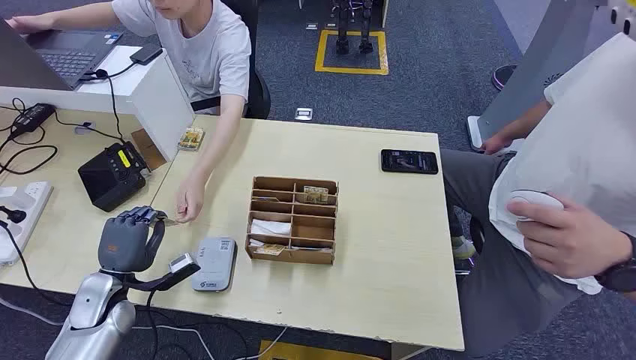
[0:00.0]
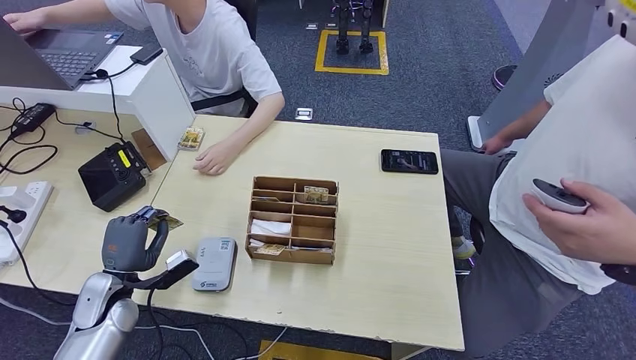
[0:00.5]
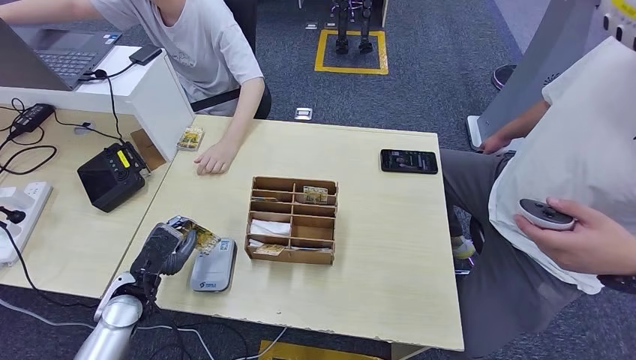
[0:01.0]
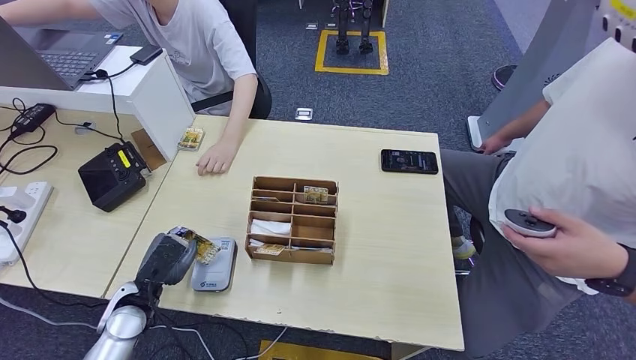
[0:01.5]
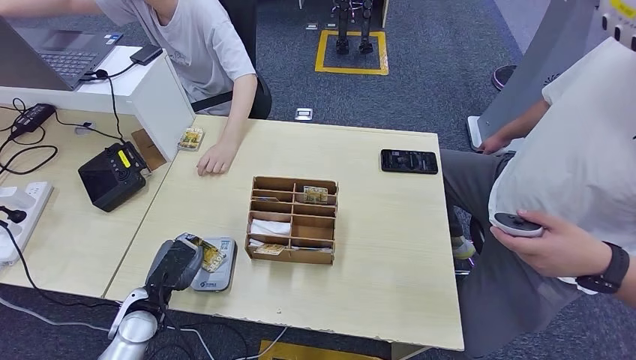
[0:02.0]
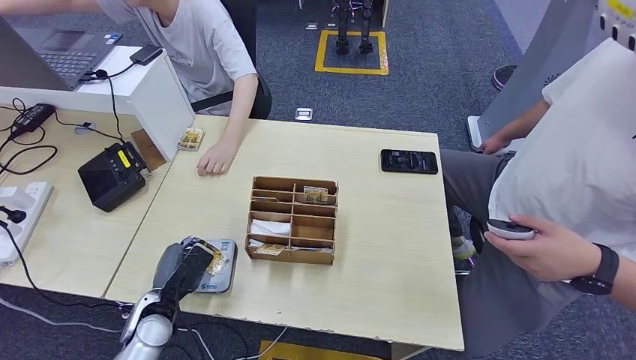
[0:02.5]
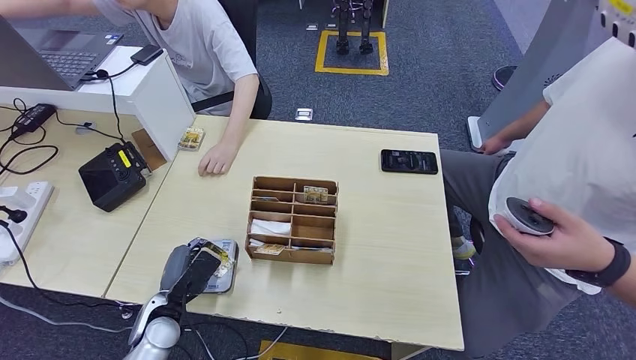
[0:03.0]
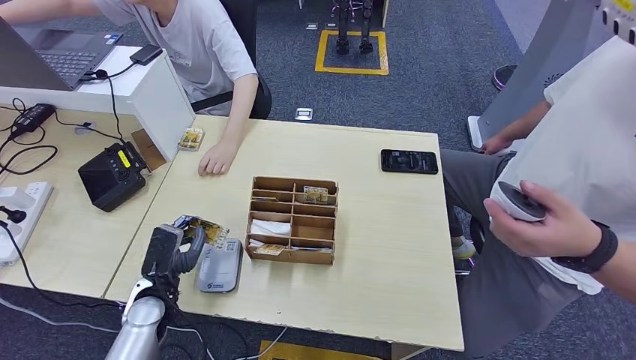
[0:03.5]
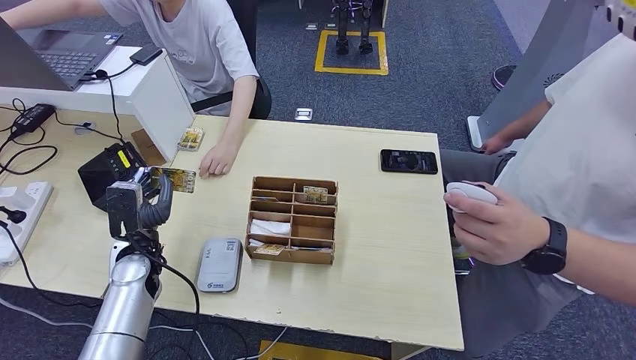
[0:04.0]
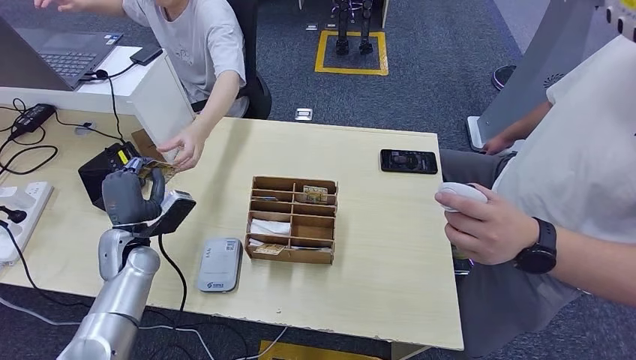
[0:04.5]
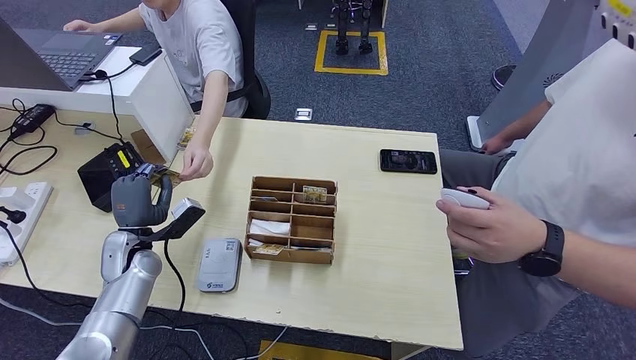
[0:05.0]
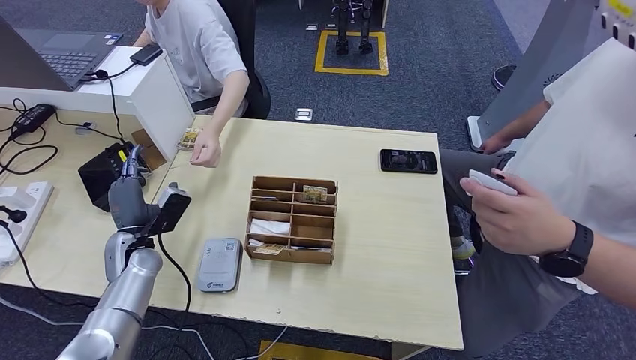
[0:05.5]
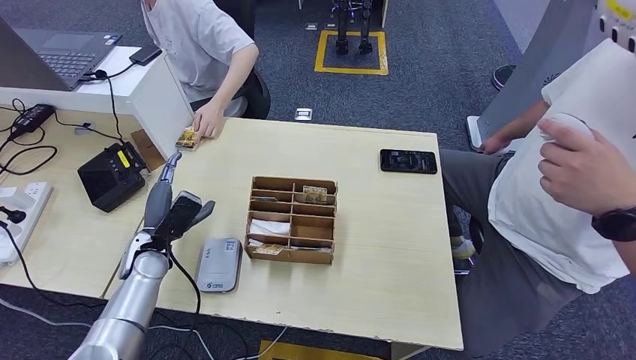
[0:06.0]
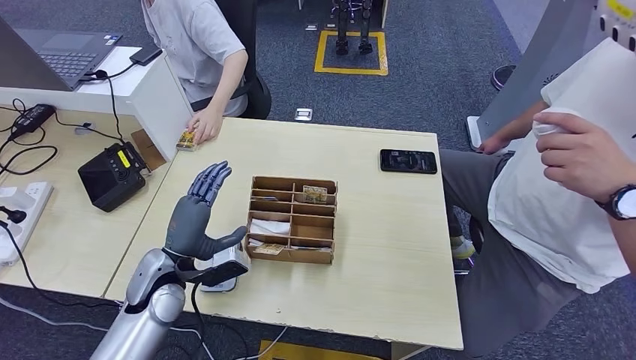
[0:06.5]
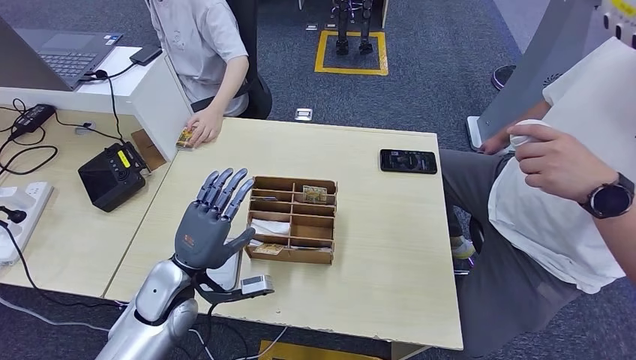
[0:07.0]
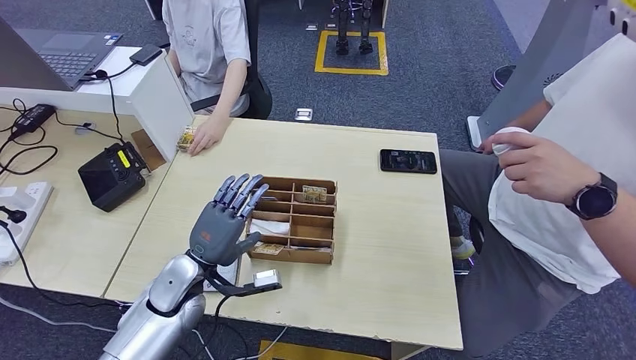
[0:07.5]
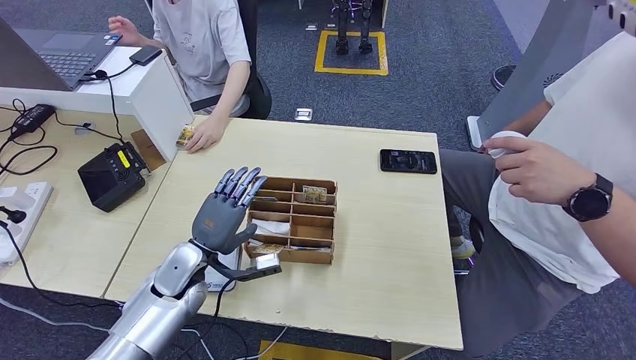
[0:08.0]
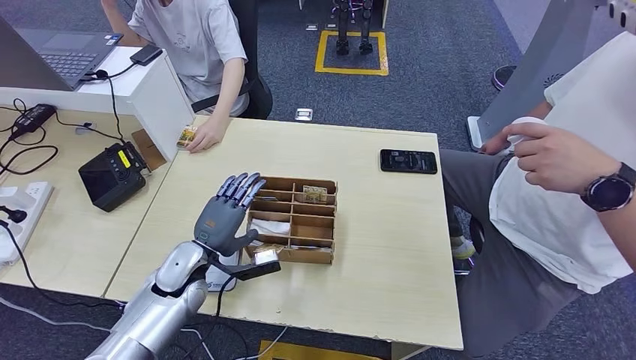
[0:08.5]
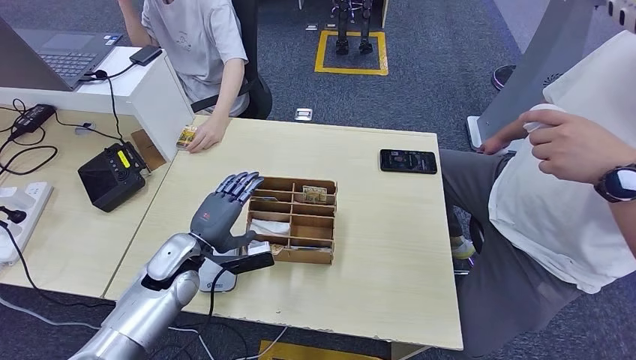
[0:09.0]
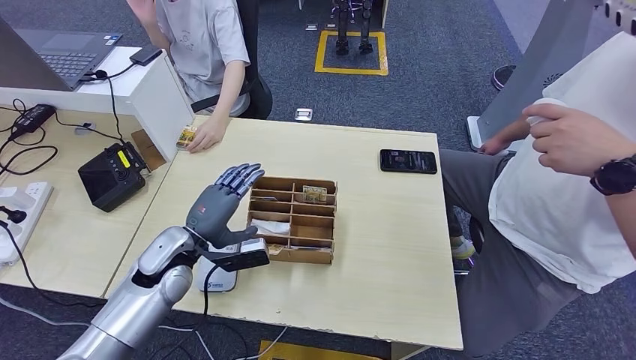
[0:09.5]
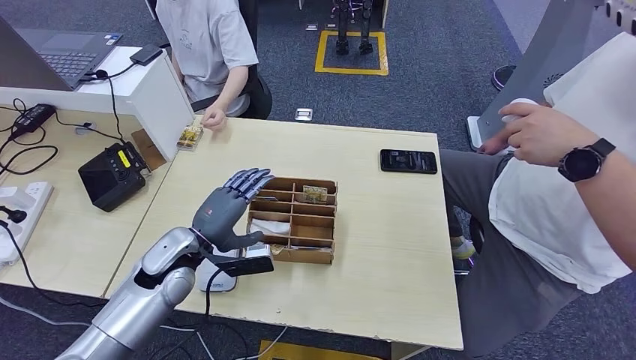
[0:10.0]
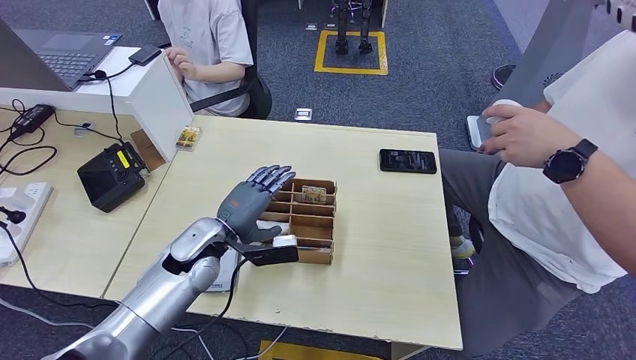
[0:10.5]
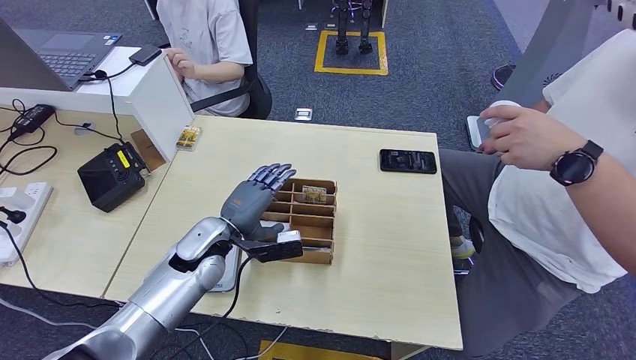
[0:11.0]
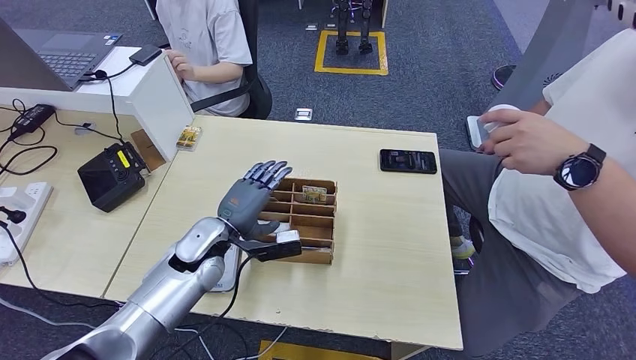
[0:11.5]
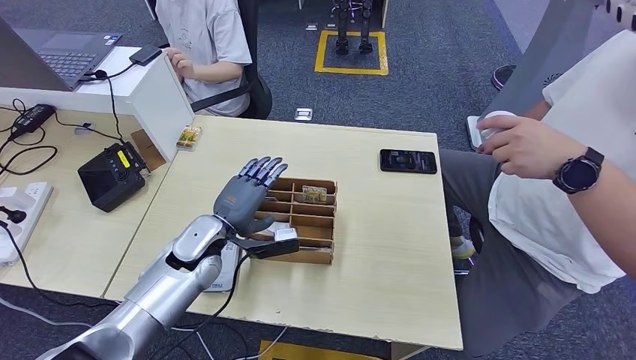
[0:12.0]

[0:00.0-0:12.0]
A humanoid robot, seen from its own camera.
Step, 0:00.0 to 0:00.5: Take the ID card from the person's hand.
Step, 0:01.0 to 0:03.0: Place the ID card on the card reader.
Step, 0:03.5 to 0:06.5: Hand the ID card to the person.
0:02.0 to 0:04.0: The left hand travels forward and upward by approximately 10 cm.
0:06.0 to 0:08.0: The left hand is displaced to the right by some 10 cm.
0:10.0 to 0:12.0: The left hand ends up some 5 cm from where it was.

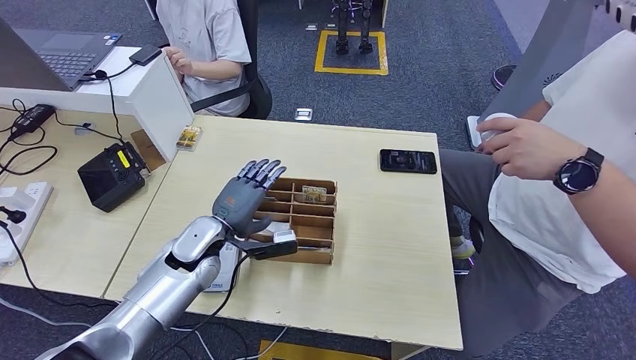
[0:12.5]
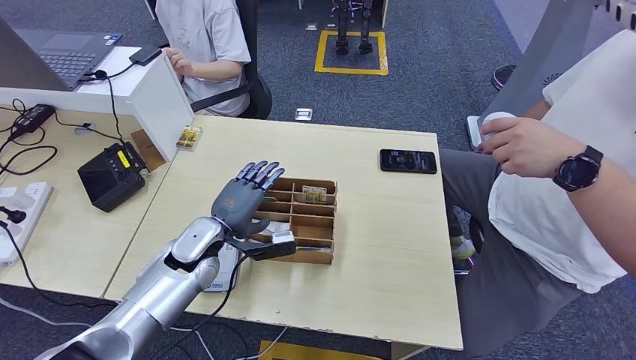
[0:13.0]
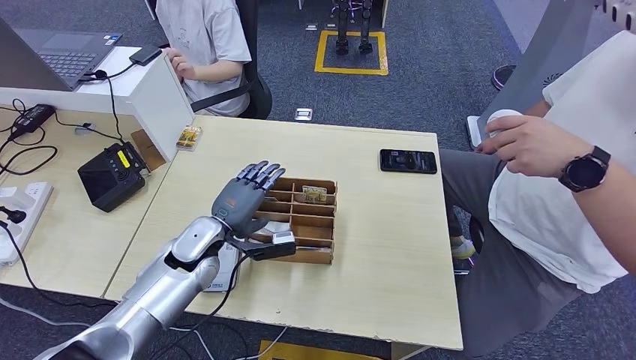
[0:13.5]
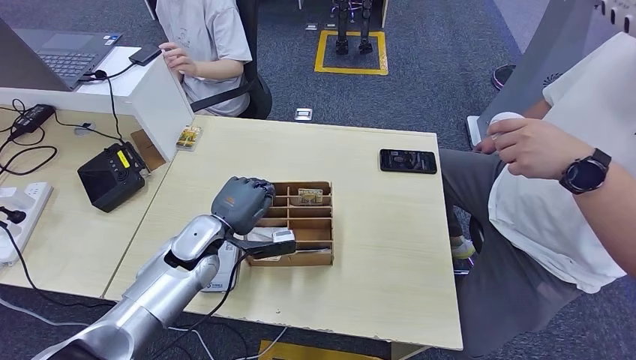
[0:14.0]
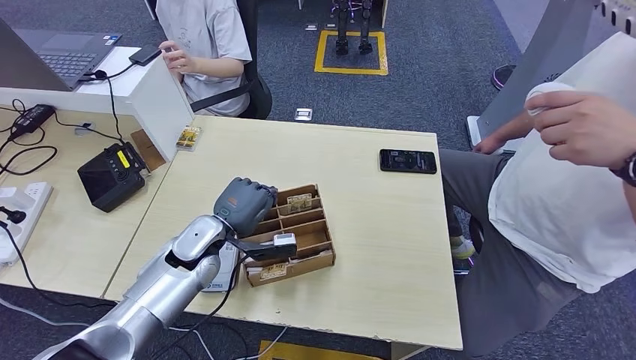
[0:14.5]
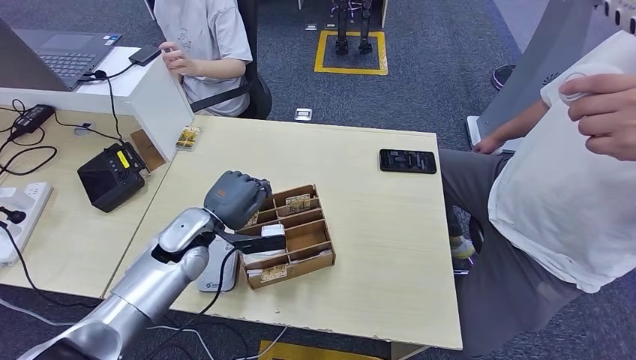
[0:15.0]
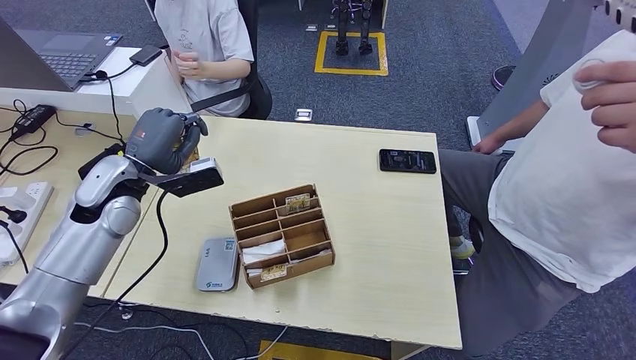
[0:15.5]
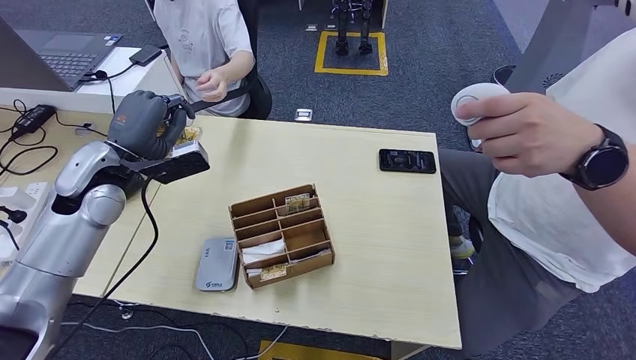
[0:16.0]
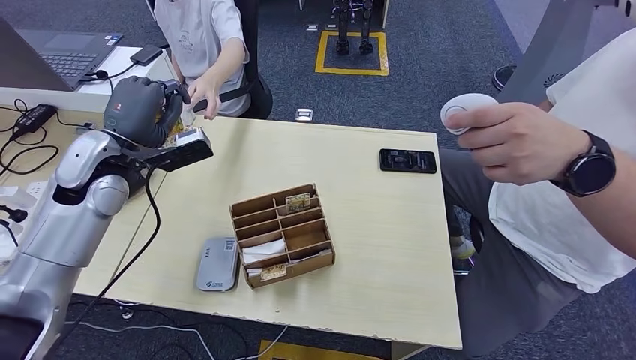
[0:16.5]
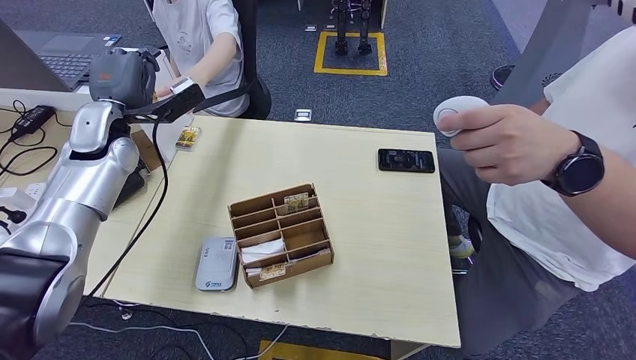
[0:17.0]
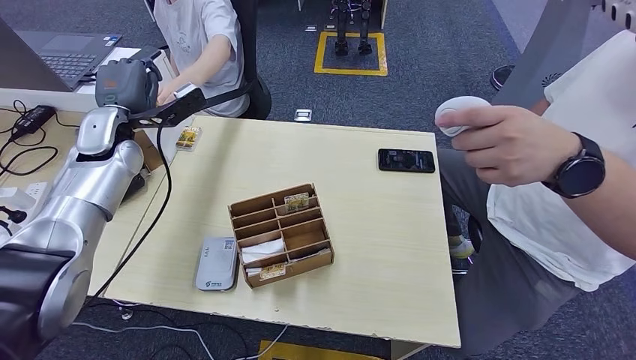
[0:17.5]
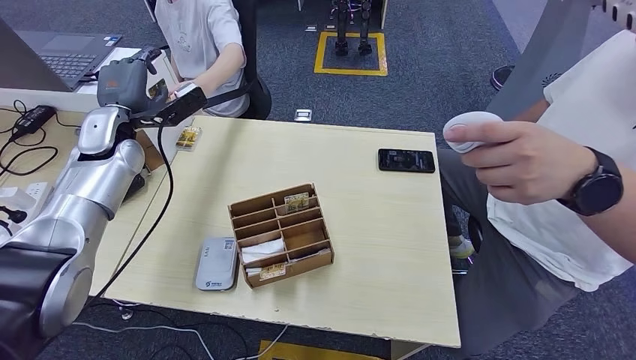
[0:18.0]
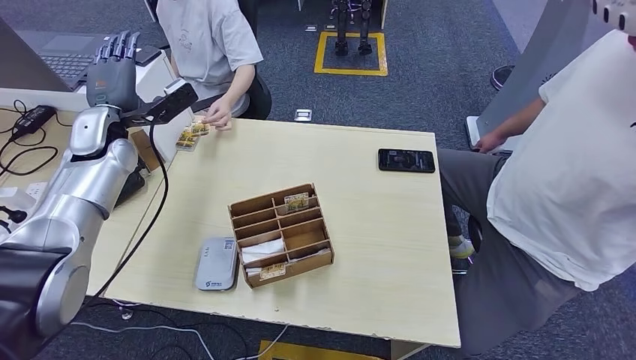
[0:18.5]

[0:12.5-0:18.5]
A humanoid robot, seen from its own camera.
Step, 0:12.5 to 0:15.0: Pick up the room key from the key card box.
Step, 0:15.5 to 0:18.5: Hand the room key to the person.
0:12.5 to 0:14.5: Both hands stay put.
